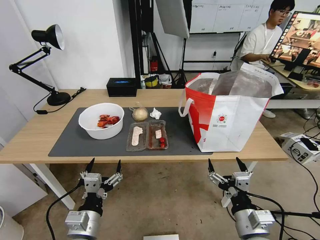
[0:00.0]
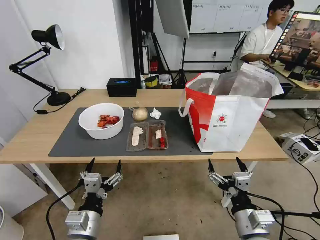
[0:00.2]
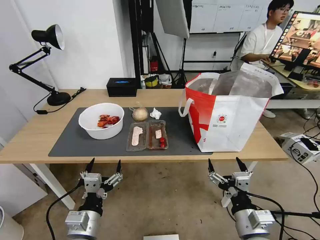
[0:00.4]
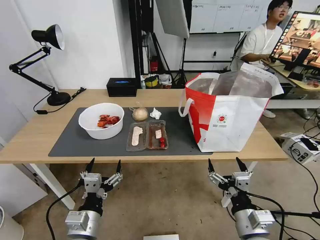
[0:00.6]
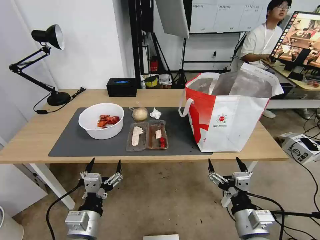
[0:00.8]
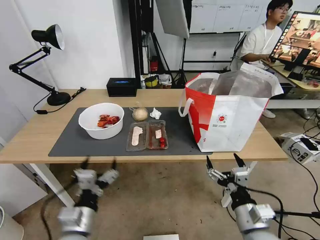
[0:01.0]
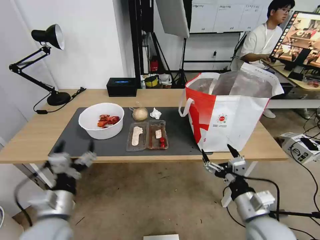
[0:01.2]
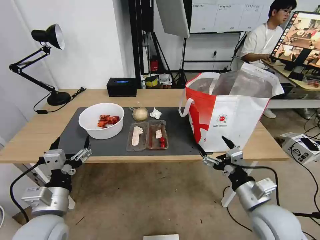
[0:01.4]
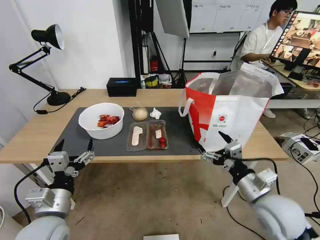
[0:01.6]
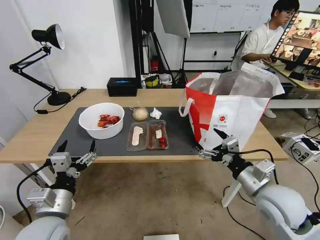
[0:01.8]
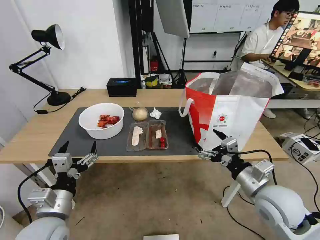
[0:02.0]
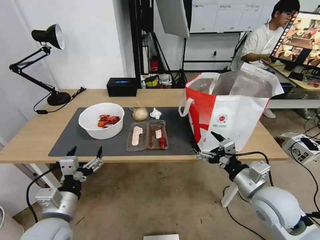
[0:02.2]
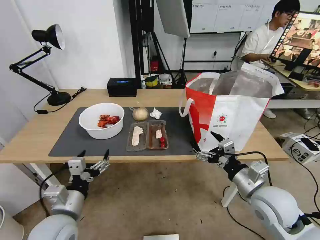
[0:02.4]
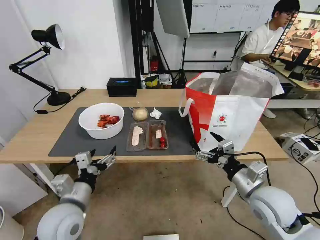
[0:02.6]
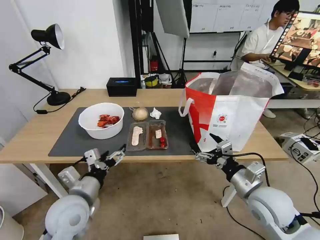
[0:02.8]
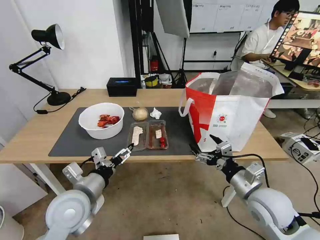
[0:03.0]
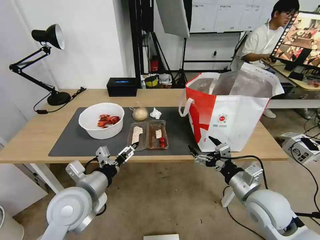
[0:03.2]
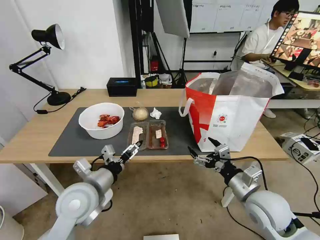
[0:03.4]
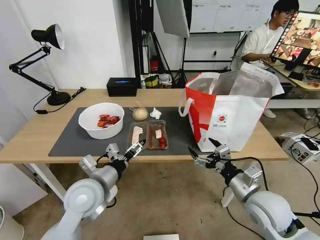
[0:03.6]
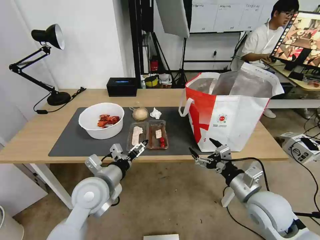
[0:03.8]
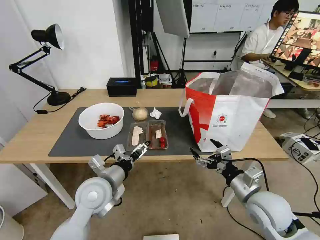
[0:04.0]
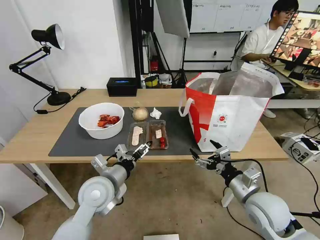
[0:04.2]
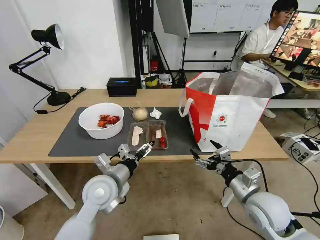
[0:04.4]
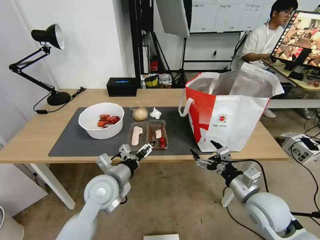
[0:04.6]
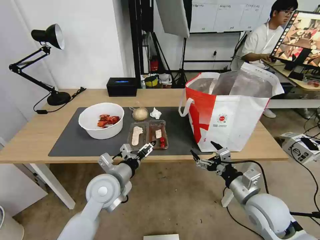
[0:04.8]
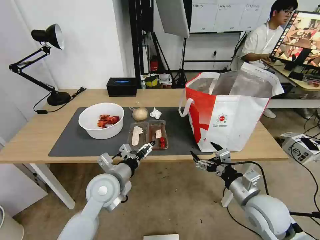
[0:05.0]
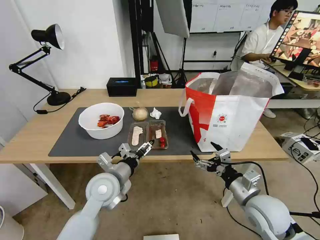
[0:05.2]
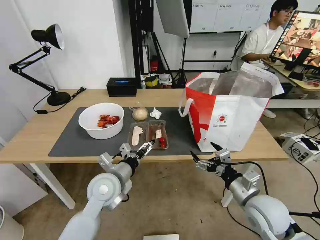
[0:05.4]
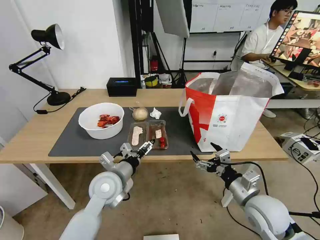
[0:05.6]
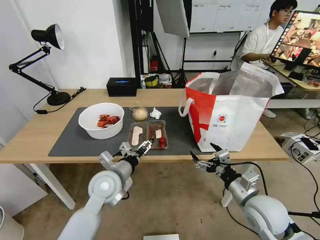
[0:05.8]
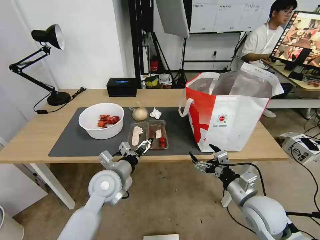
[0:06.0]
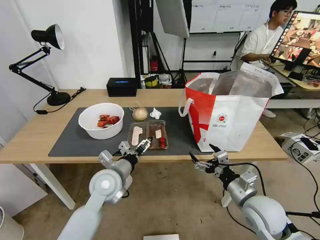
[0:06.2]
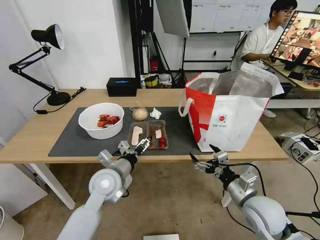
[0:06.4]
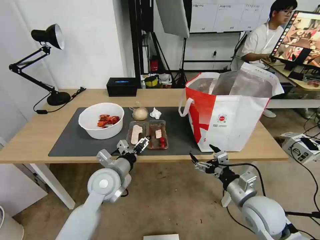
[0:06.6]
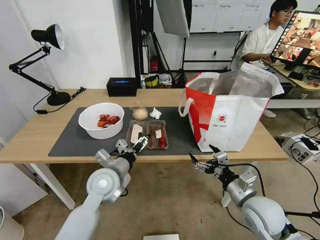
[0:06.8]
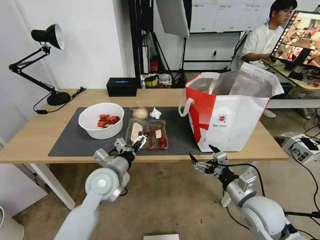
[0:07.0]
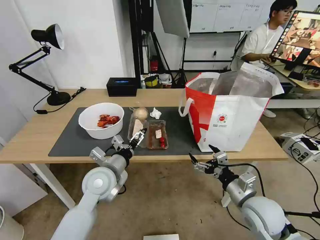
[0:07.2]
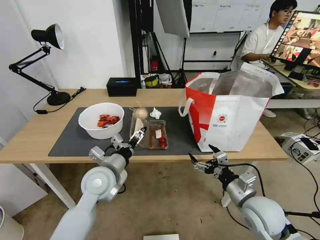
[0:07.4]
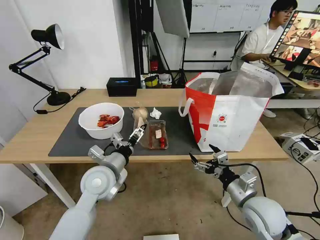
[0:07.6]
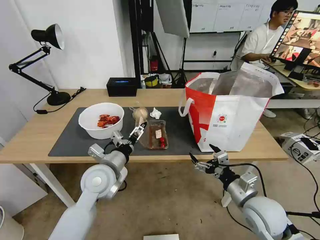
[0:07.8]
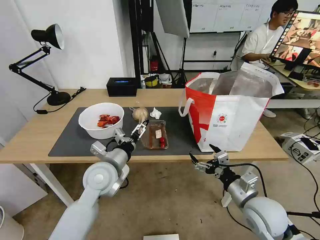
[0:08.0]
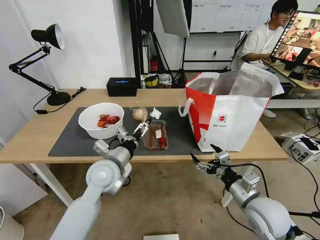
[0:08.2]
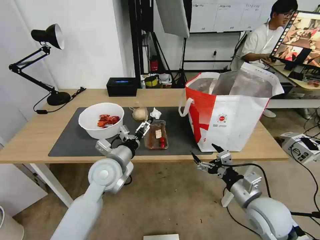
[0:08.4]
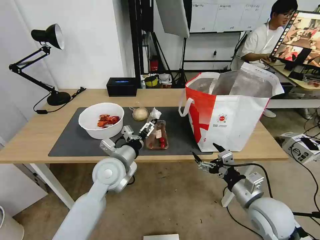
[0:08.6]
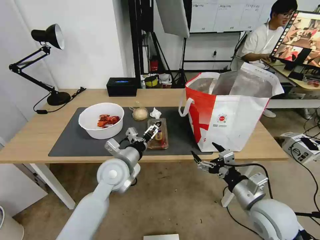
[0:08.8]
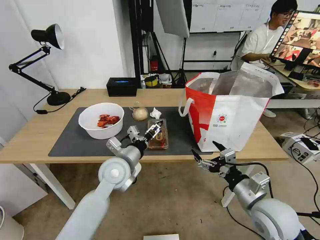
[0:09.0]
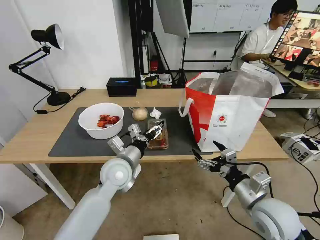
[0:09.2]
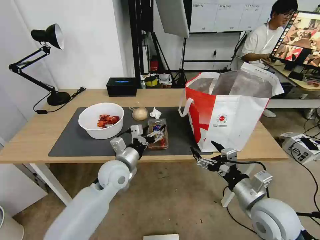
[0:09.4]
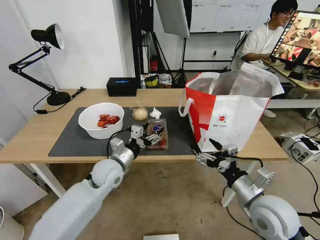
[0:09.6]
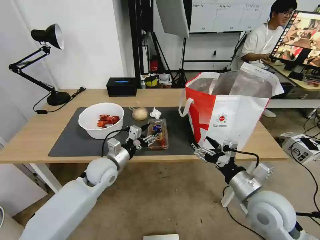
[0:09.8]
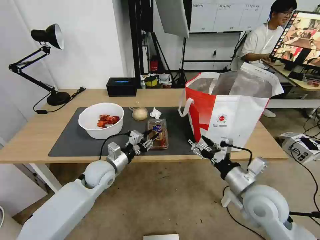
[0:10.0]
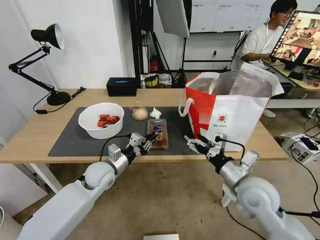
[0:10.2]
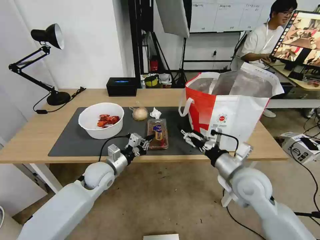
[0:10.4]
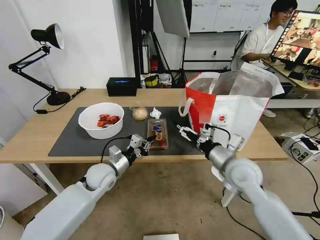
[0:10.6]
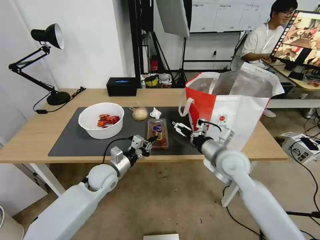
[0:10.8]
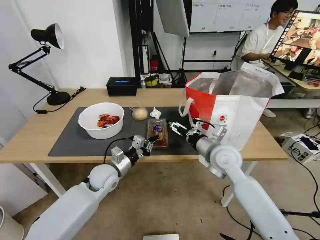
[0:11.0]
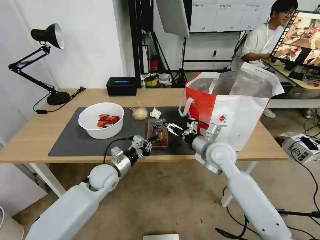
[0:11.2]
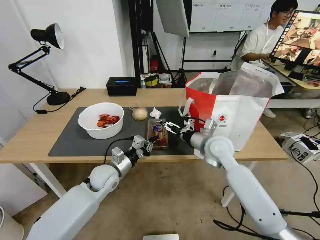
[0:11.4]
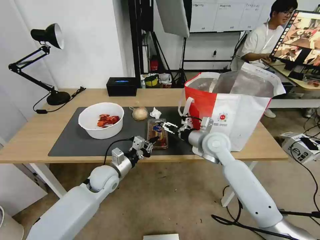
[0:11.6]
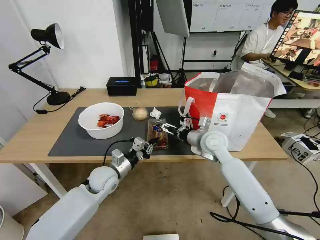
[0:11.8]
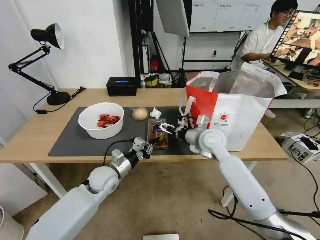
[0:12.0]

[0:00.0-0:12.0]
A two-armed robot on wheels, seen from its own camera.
Task of the whole recording: Pick up the trash from the table and place it into the takeout bag.
0:01.6 to 0:03.0: The left gripper moves forward, about 5 cm.
0:03.0 to 0:04.4: The left gripper travels forward and to the right by approximately 10 cm.
0:04.4 to 0:07.6: The grippers stay close to where they were, moving slightly.
0:07.6 to 0:09.0: The left gripper moves some 5 cm.
0:09.0 to 0:10.4: The right gripper is displaced forward by roughly 10 cm, while the left gripper heads to the left and downward, covering roughly 10 cm, and closes up.
0:10.4 to 0:12.0: The right gripper moves forward and to the left, approximately 15 cm.

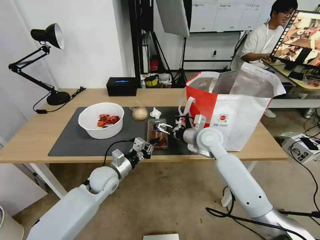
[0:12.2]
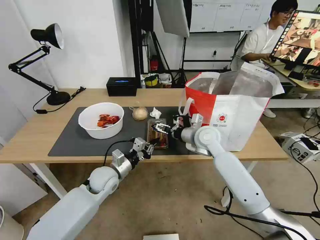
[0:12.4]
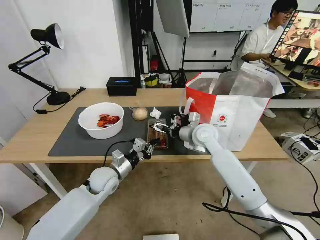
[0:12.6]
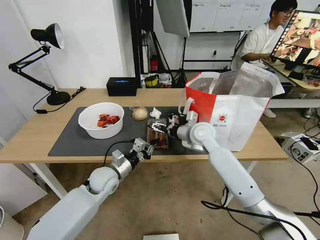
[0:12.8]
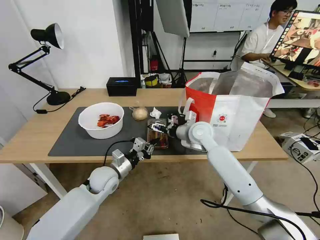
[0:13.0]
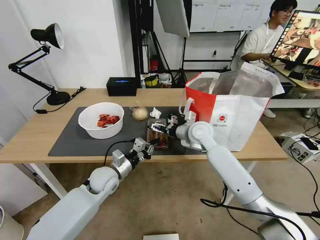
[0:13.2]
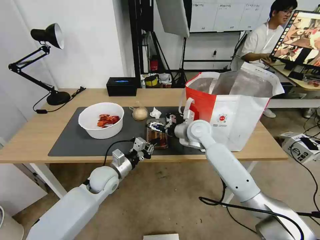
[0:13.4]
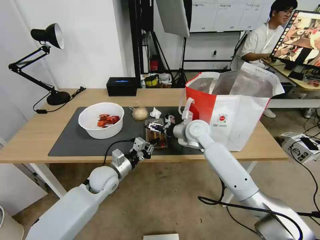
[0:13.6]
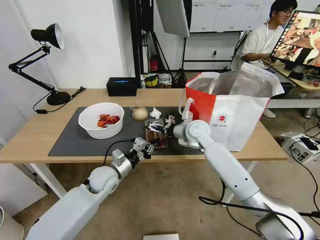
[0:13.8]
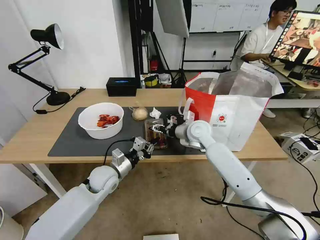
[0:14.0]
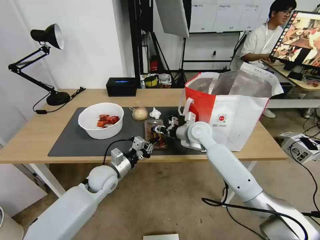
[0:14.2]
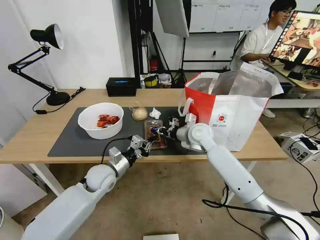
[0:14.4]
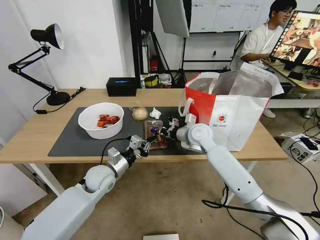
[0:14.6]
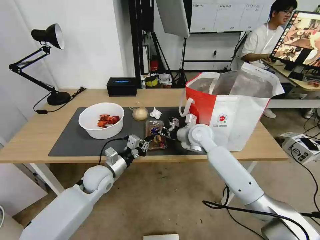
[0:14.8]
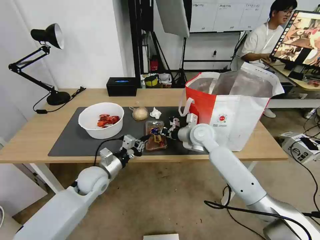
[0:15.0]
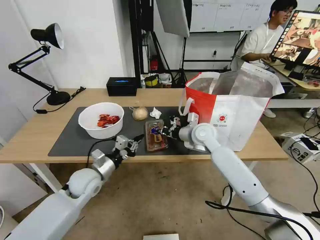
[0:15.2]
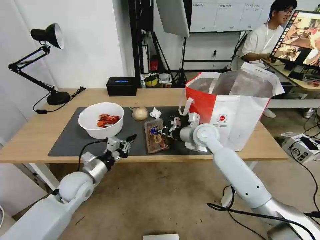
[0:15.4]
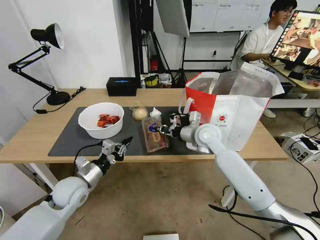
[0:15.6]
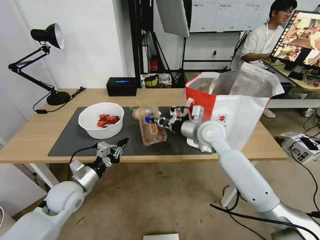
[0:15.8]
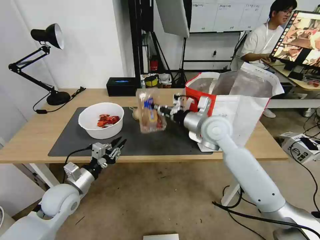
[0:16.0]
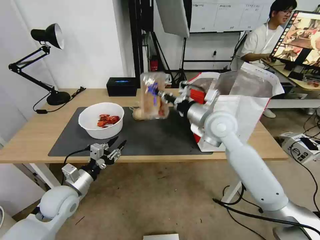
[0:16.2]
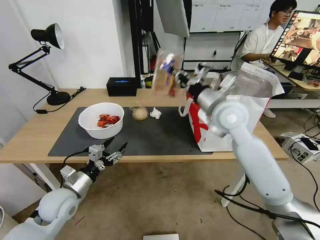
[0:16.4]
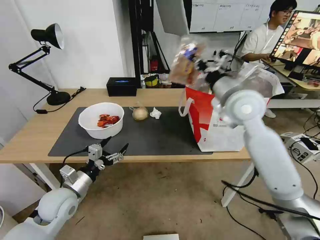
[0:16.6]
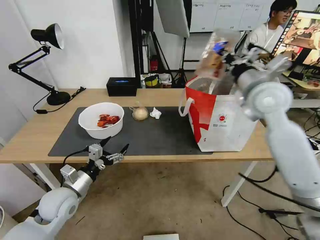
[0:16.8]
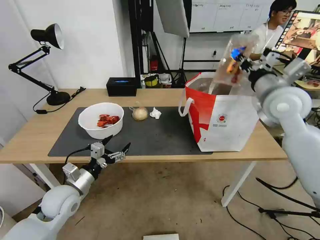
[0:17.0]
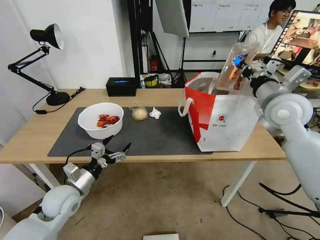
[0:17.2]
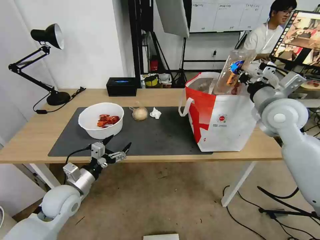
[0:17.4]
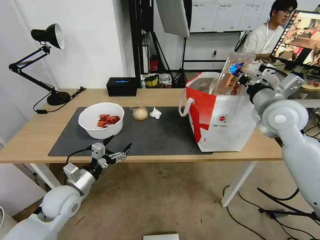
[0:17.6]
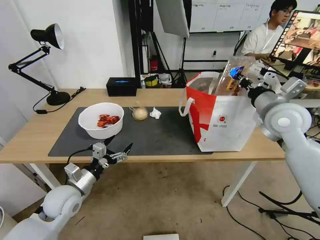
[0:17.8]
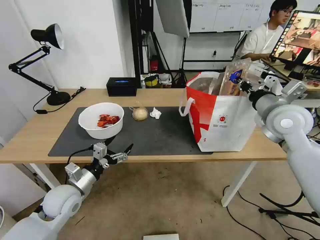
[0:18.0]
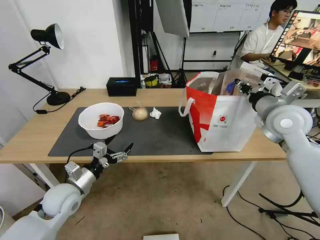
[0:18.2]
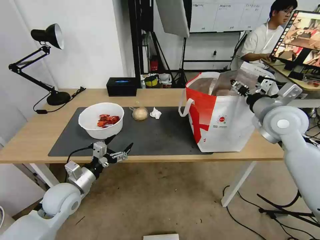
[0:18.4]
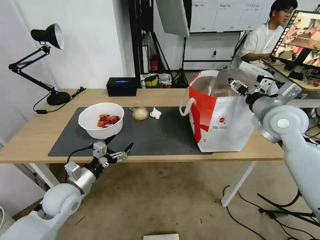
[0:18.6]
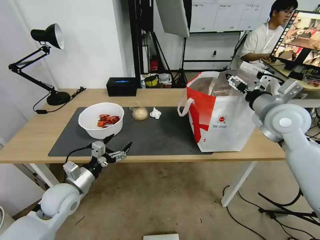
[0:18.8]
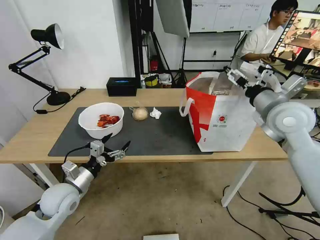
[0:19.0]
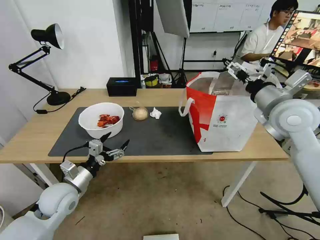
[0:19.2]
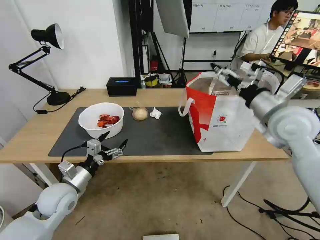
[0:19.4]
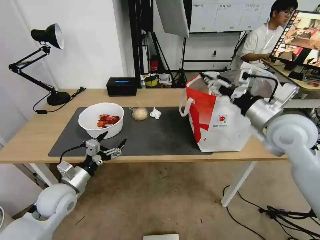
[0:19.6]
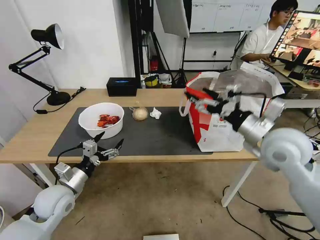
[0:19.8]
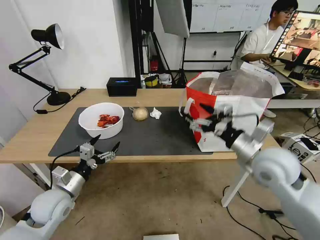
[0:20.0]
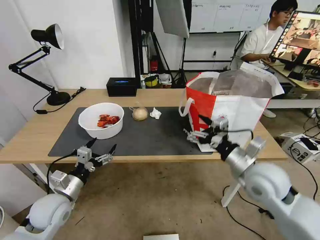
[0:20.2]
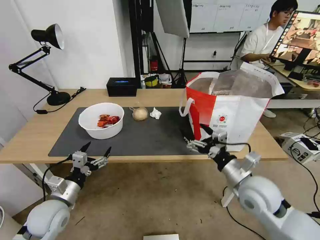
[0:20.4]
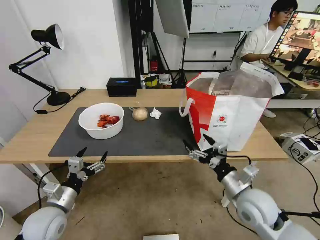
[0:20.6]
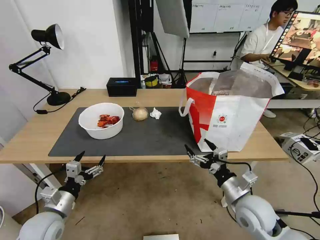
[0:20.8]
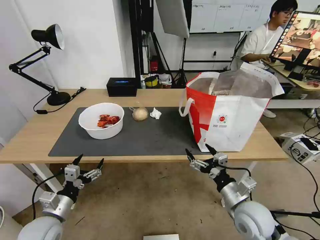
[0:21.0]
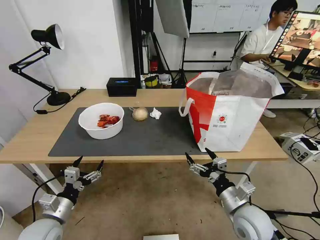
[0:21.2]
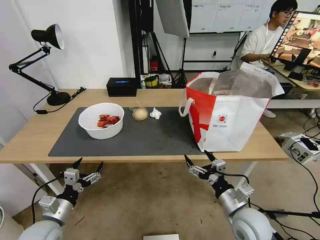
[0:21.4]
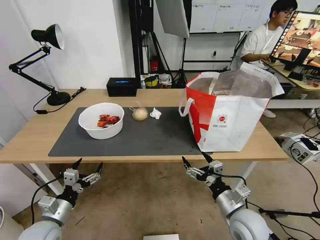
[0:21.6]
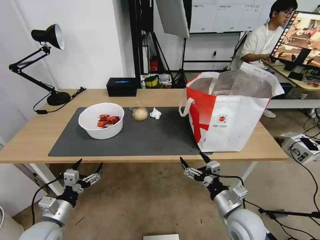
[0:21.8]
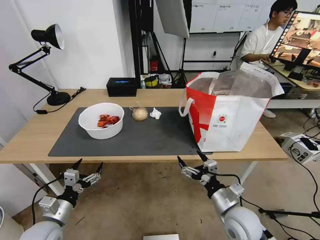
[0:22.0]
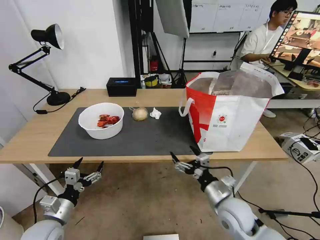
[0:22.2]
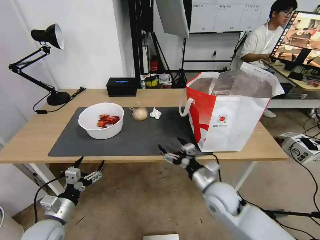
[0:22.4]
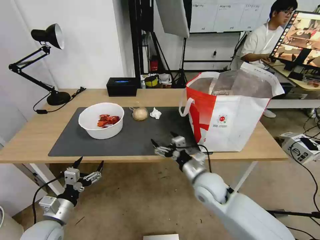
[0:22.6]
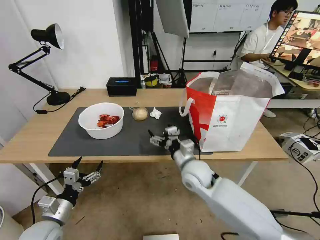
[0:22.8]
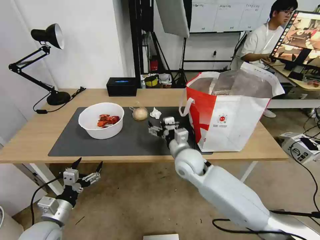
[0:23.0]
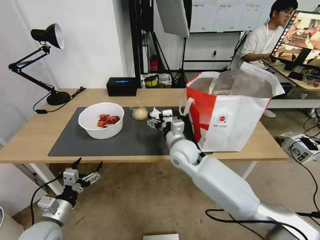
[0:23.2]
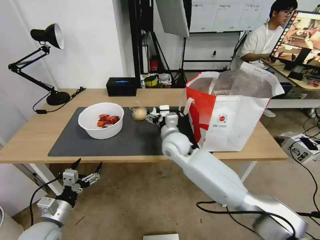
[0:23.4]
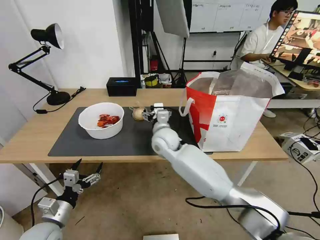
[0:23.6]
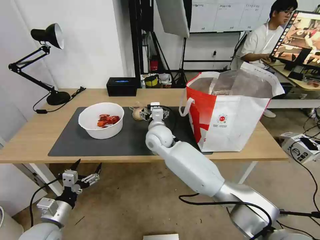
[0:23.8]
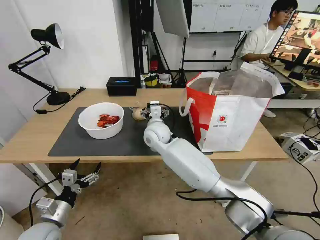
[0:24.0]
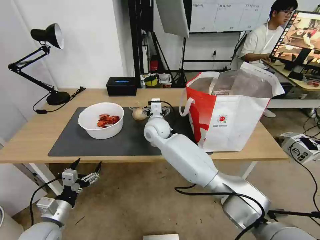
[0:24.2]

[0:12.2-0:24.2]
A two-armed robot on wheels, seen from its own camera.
Task of the whole recording: Pick up the trash from the table and place it into the takeout bag.
0:12.2 to 0:13.8: The right gripper shifts by approximately 5 cm.
0:13.8 to 0:15.2: The right gripper closes its fingers; the left gripper travels to the left by roughly 5 cm.
0:15.2 to 0:16.6: The left gripper goes roughly 5 cm backward, and opens up, while the right gripper heads upward, covering about 15 cm.
0:16.6 to 0:18.2: The right gripper goes roughly 10 cm to the right, and opens.
0:18.2 to 0:19.8: The right gripper travels backward by some 10 cm, and opens up.
0:19.8 to 0:21.2: The left gripper moves backward and downward, some 10 cm, while the right gripper goes about 25 cm downward and backward.
0:21.2 to 0:22.6: The right gripper goes about 15 cm to the left and forward.
0:22.6 to 0:24.2: The right gripper is displaced forward and to the left by approximately 25 cm.
